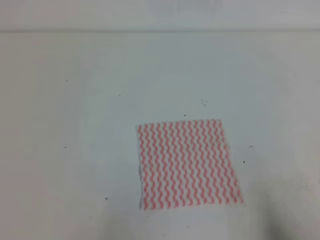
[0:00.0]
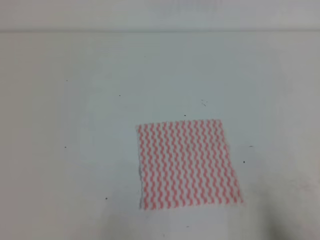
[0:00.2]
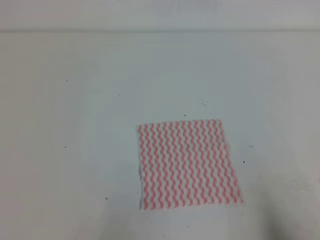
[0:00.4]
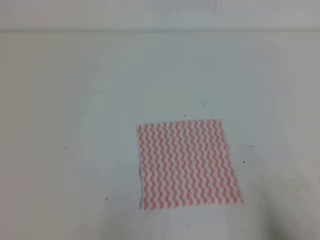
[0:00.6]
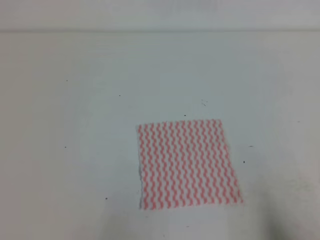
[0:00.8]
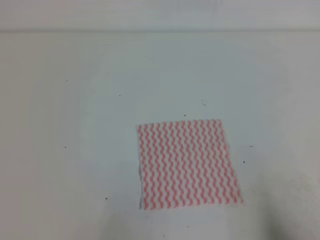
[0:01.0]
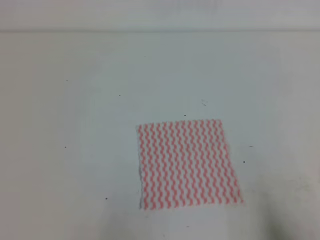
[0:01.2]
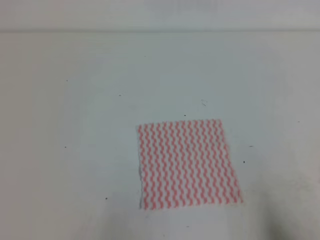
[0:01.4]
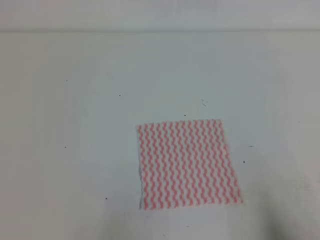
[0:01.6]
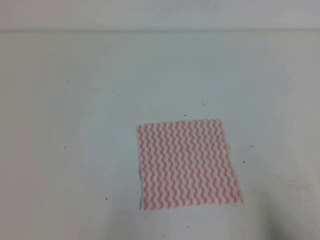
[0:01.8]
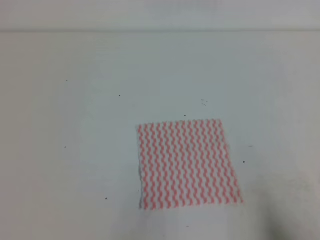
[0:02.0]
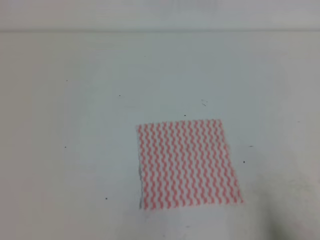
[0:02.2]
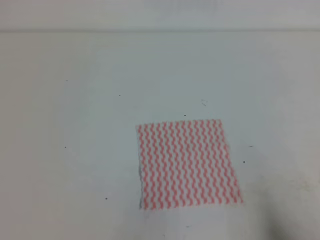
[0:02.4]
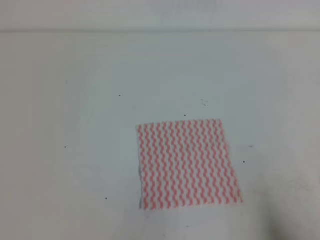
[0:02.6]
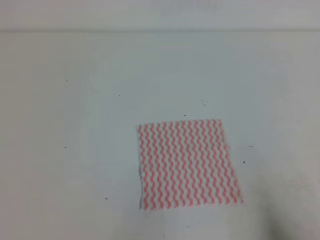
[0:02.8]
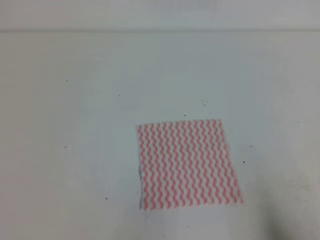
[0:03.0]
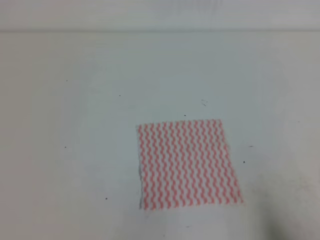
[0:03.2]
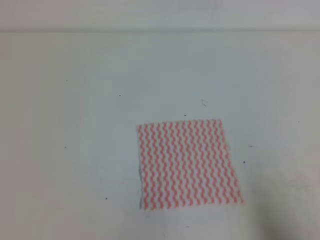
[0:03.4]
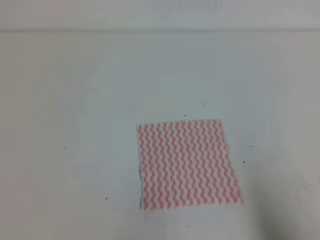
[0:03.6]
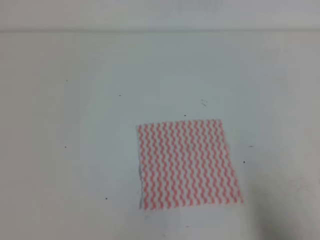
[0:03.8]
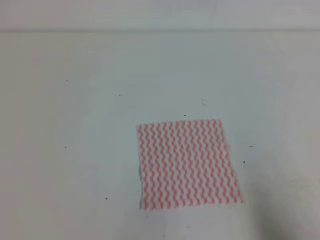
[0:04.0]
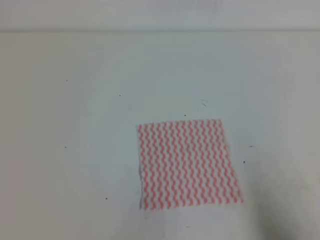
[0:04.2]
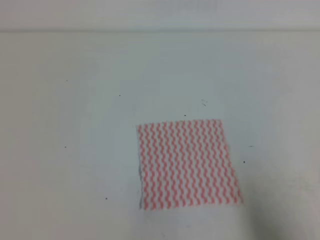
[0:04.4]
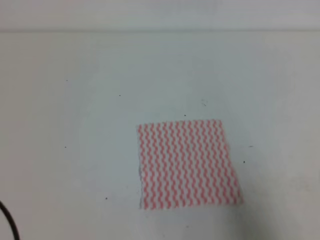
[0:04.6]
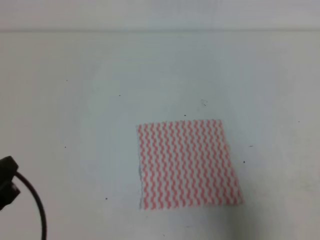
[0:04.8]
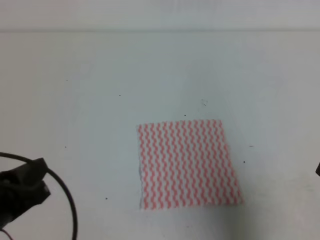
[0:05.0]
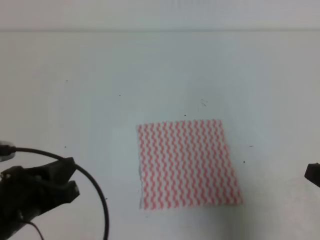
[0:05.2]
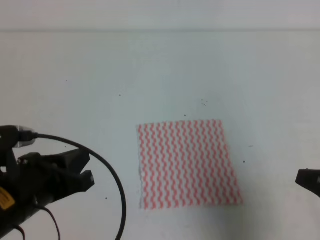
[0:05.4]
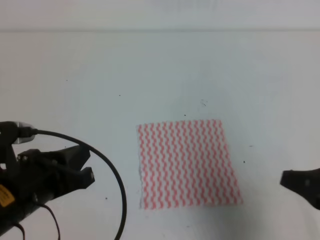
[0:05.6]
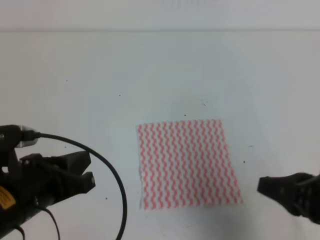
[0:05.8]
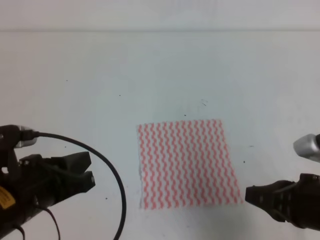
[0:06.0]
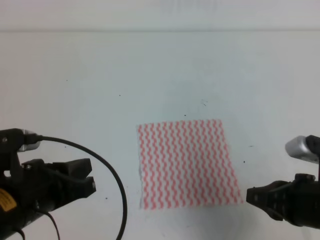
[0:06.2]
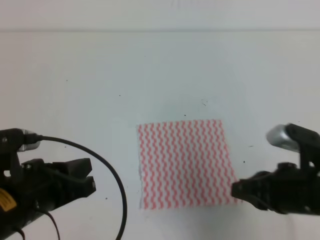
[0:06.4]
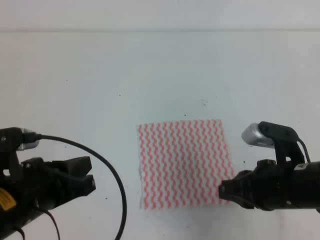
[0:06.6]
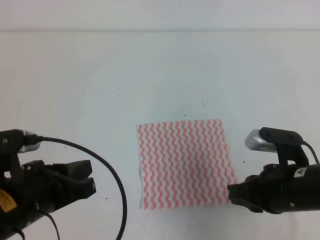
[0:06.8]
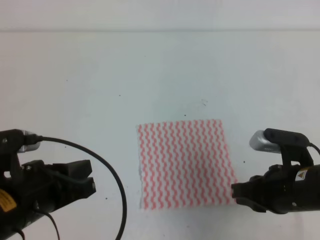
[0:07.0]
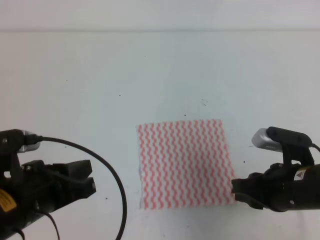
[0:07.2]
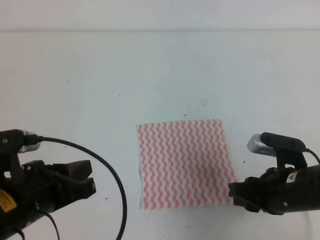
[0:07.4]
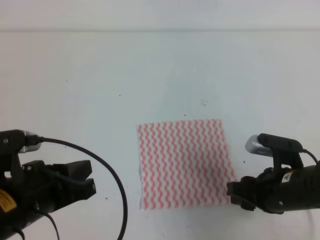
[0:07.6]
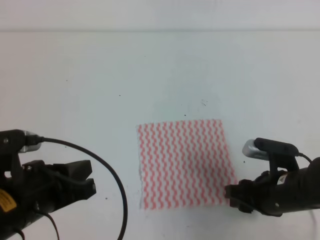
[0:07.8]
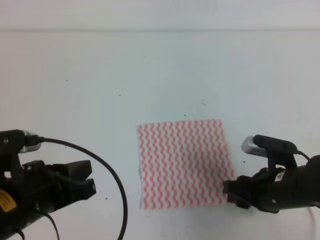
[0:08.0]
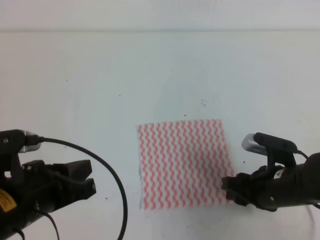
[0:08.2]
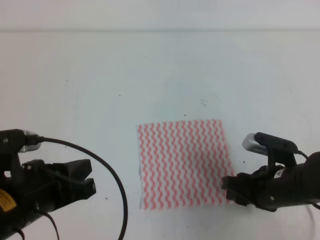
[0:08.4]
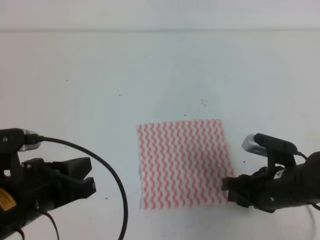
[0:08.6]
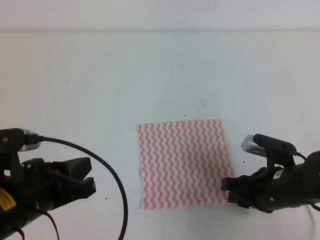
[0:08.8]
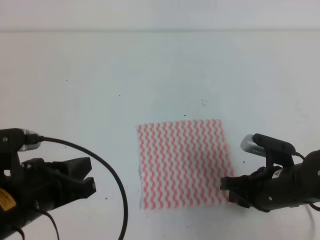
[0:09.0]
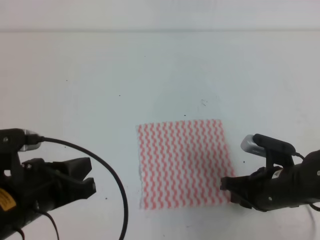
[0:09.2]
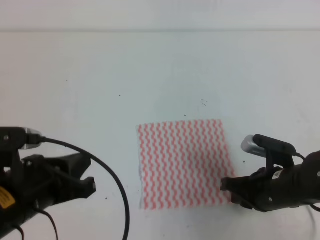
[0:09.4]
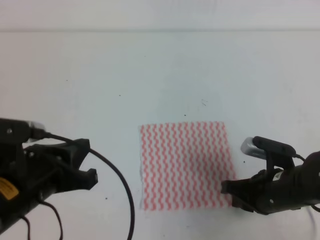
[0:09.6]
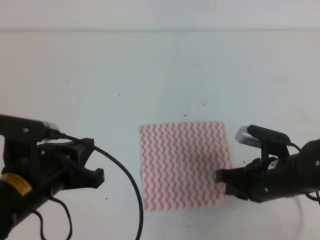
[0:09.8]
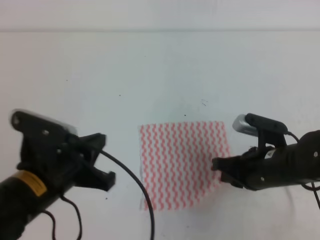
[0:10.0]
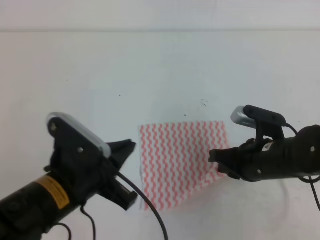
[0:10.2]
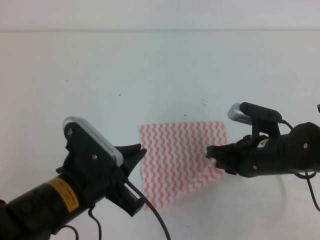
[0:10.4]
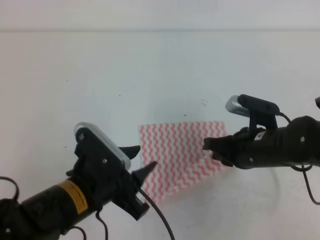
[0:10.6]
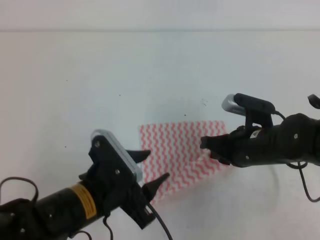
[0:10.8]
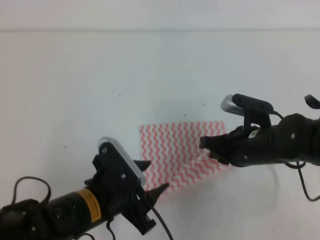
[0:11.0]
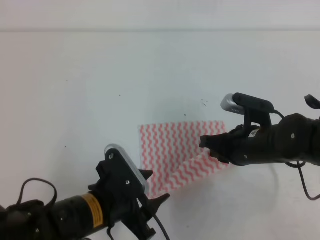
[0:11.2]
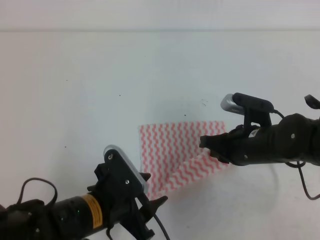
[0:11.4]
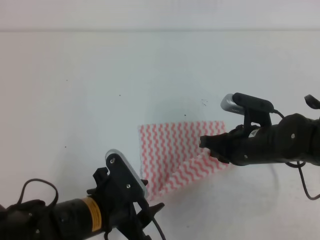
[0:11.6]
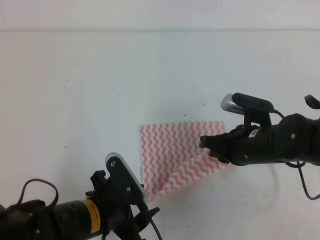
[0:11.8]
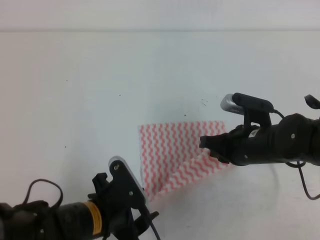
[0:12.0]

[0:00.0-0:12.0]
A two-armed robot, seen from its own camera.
0:00.0 to 0:01.6: Both grippers stay put.
0:04.4 to 0:06.0: The right gripper travels forward and to the left by approximately 15 cm, while the left gripper goes some 15 cm forward and to the right.
0:06.0 to 0:07.6: The right gripper heads downward and forward, covering about 10 cm, and opens its fingers.
0:07.6 to 0:09.0: The right gripper closes its fingers.
0:09.0 to 0:10.4: The left gripper is displaced to the right by roughly 5 cm, while the right gripper moves about 5 cm, and closes up.
0:10.4 to 0:12.0: The left gripper is displaced downward by roughly 10 cm, and opens.

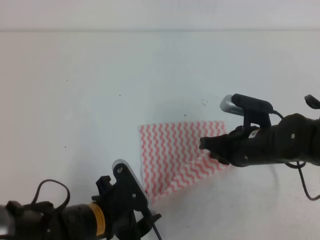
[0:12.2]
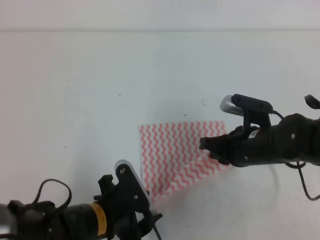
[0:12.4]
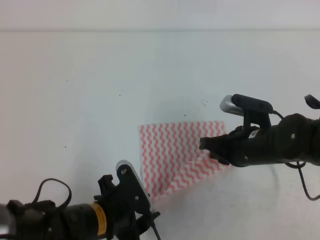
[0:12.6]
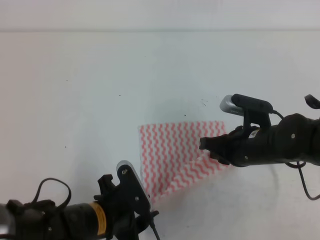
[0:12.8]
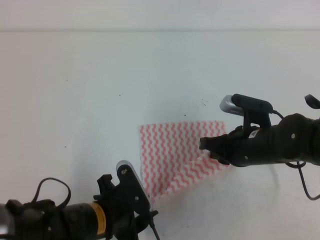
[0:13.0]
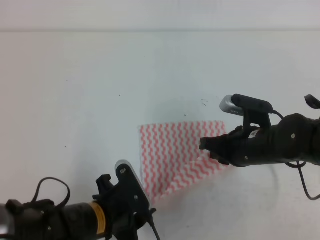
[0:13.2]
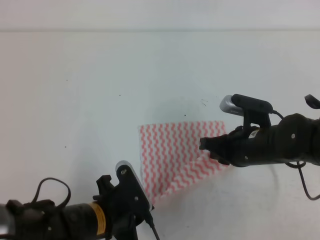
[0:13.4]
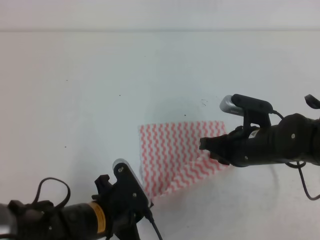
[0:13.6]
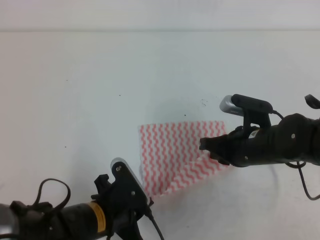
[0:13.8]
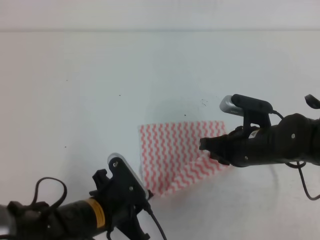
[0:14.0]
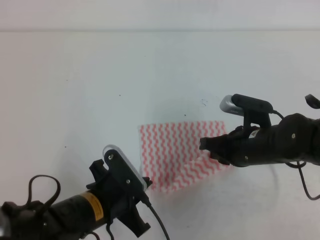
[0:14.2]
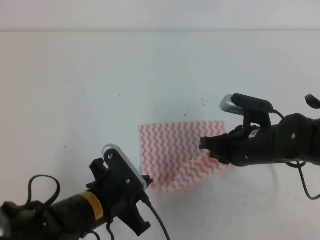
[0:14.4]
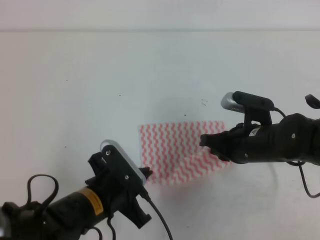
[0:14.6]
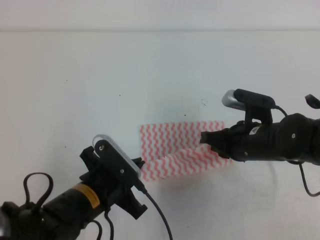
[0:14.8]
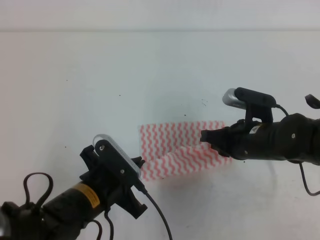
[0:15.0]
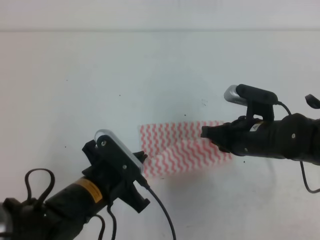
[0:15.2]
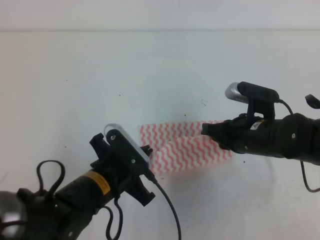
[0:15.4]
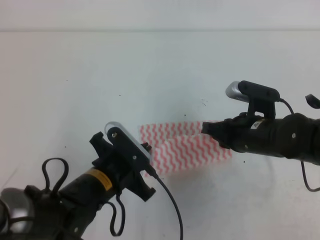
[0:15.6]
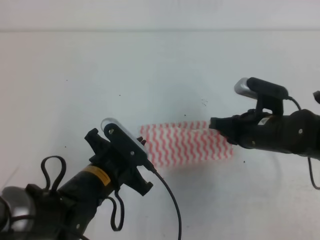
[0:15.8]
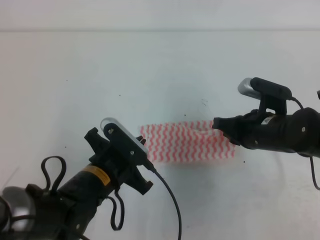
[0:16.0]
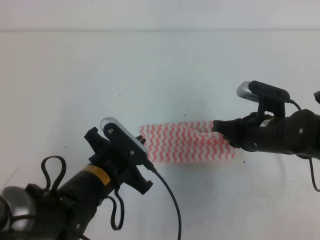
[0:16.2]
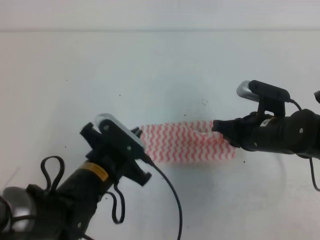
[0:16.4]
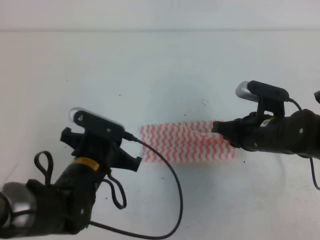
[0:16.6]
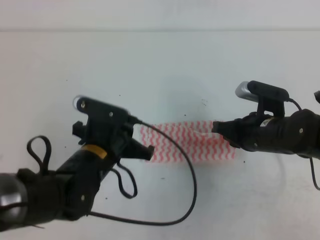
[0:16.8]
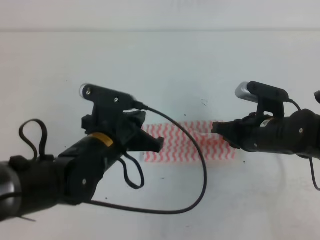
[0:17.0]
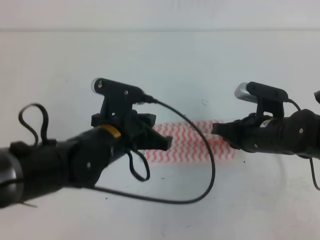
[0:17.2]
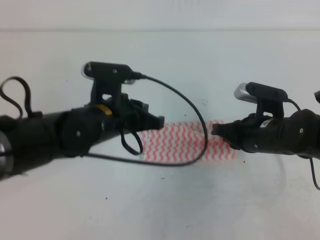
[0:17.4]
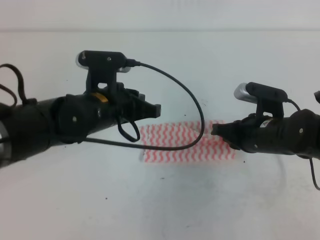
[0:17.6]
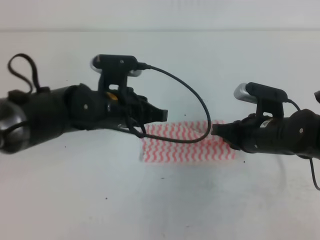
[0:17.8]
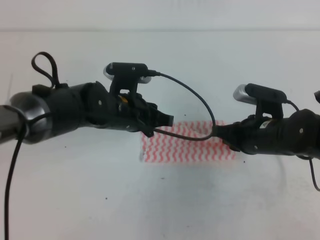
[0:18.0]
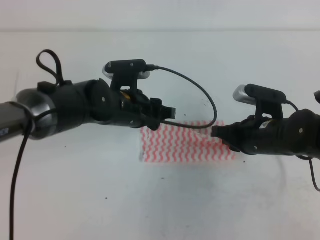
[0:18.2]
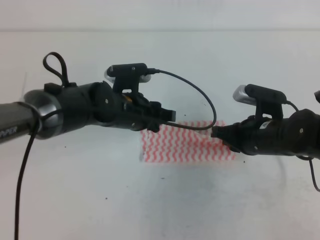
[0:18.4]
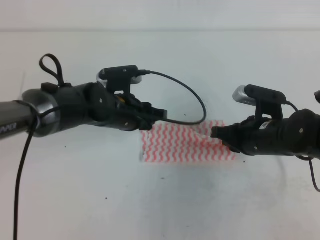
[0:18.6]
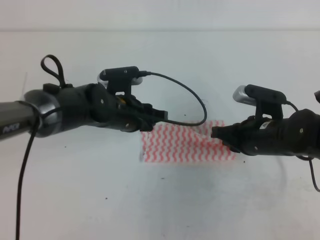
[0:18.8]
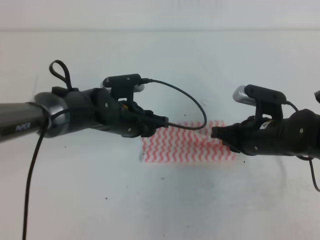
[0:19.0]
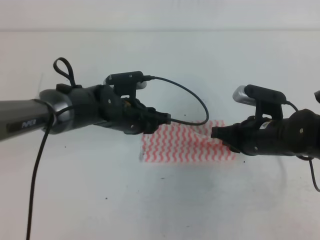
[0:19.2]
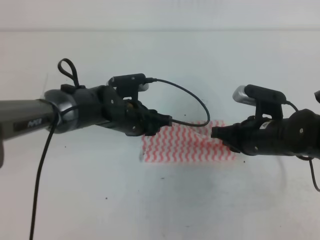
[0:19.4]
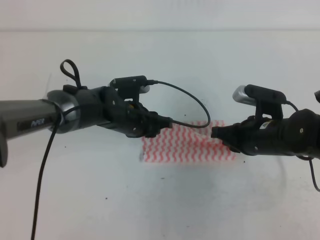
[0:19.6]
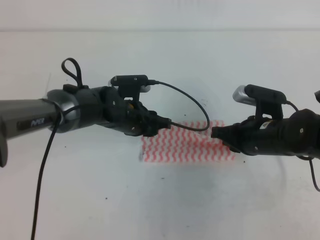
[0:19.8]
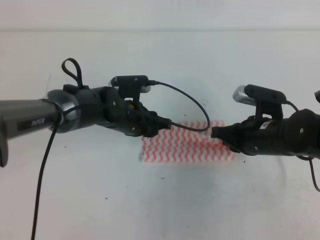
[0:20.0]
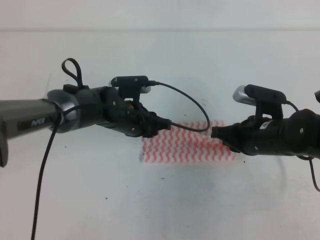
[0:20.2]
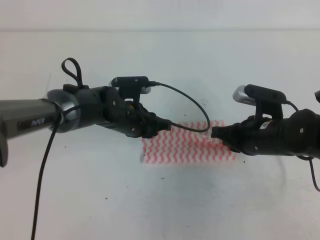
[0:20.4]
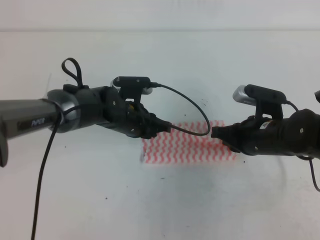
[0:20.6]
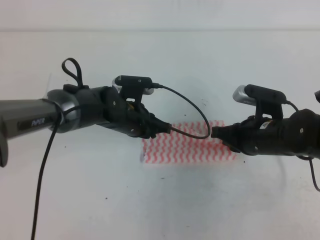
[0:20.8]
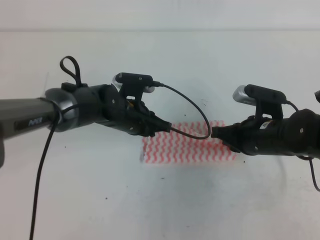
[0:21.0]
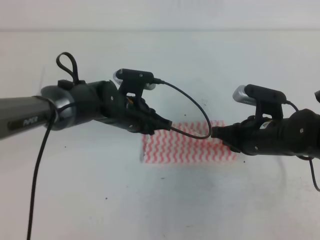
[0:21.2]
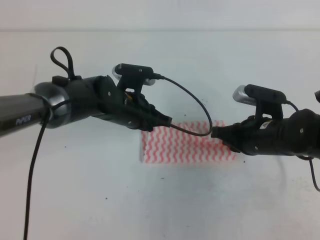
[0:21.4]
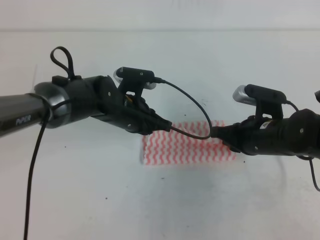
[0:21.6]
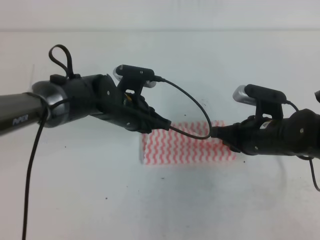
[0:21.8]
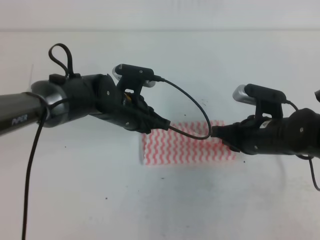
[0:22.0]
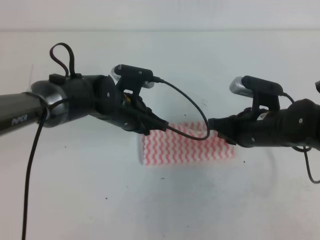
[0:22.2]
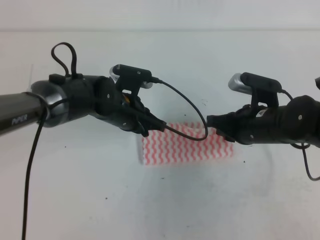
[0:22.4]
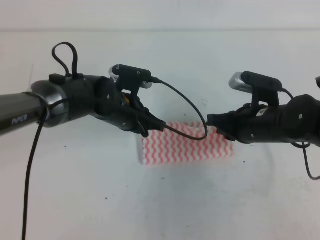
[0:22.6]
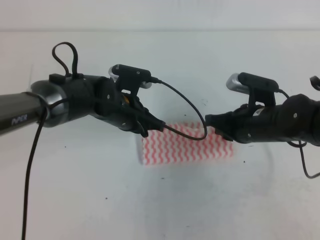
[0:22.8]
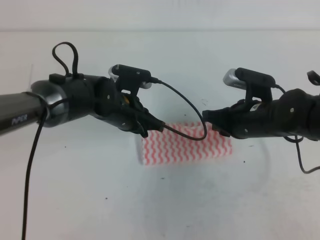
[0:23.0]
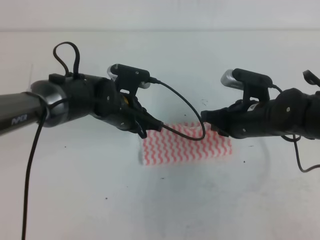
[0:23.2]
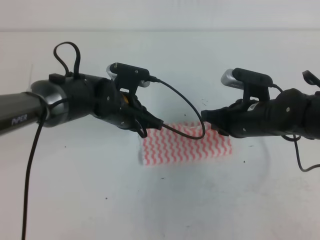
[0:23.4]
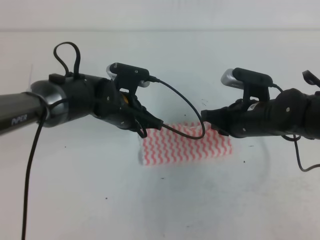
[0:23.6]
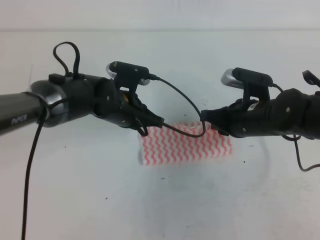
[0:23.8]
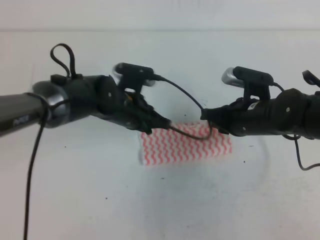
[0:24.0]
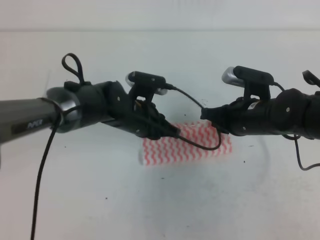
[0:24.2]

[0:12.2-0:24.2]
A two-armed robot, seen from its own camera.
0:12.2 to 0:13.8: The left gripper closes its fingers.
0:15.2 to 0:16.6: The grippers make only small movements.
0:16.6 to 0:18.2: The left gripper travels forward by approximately 10 cm, and opens up.
0:18.2 to 0:19.8: The left gripper heads downward, covering about 5 cm.
0:19.8 to 0:21.2: The left gripper closes its fingers.
0:21.2 to 0:24.2: The grippers make only small movements.
